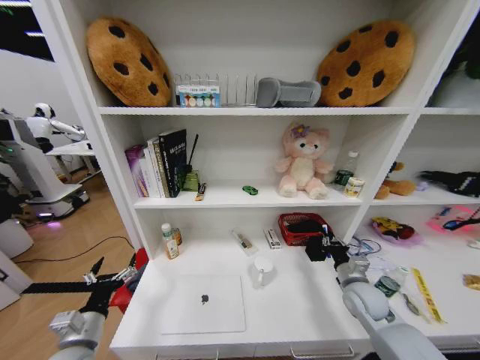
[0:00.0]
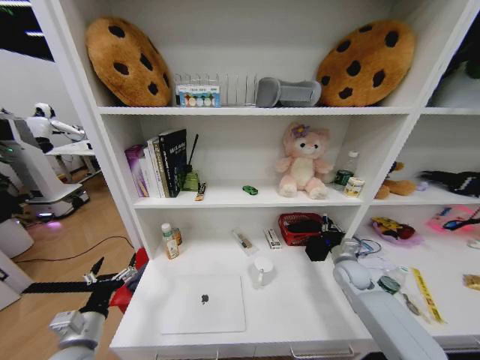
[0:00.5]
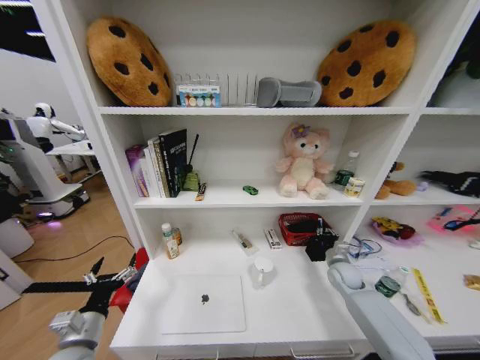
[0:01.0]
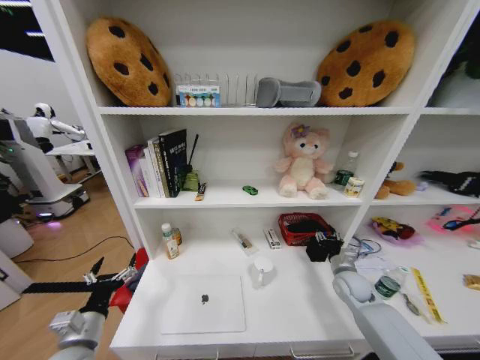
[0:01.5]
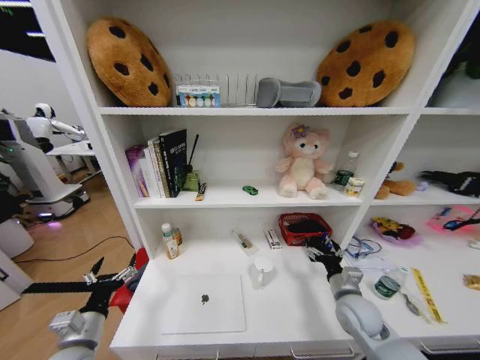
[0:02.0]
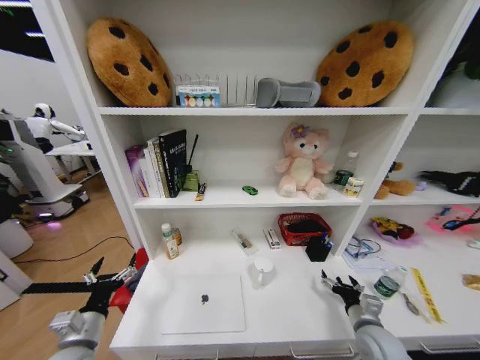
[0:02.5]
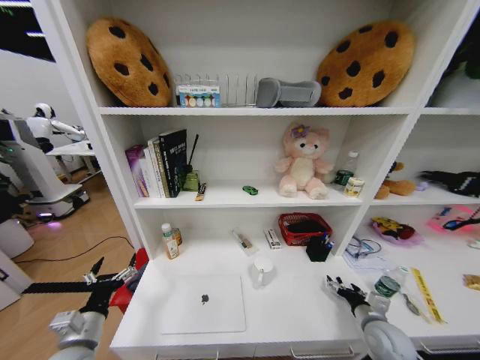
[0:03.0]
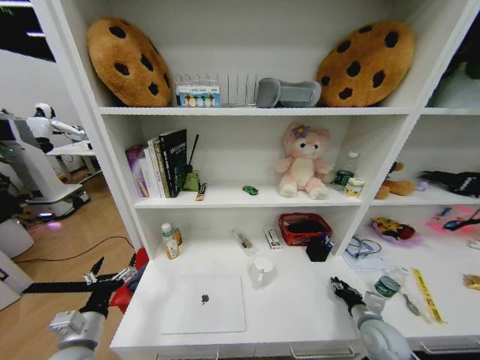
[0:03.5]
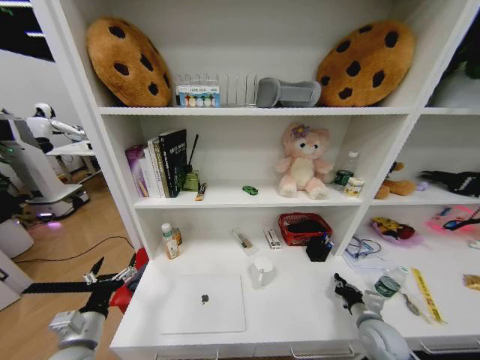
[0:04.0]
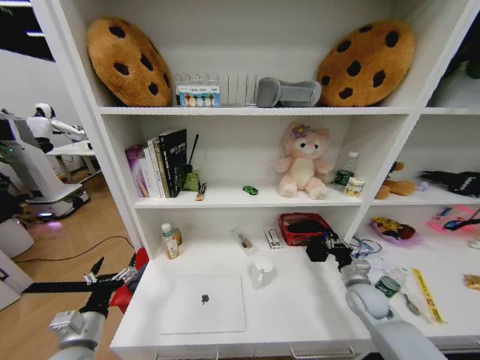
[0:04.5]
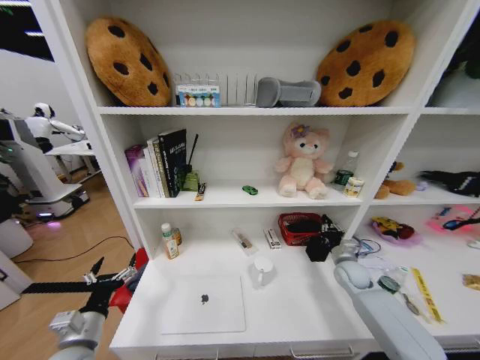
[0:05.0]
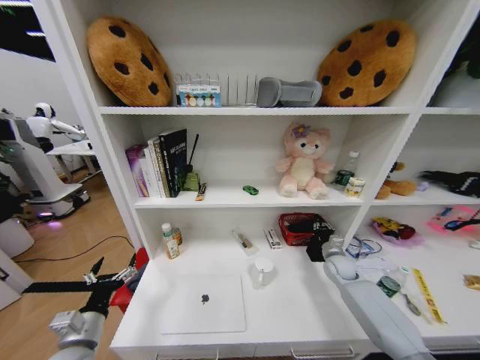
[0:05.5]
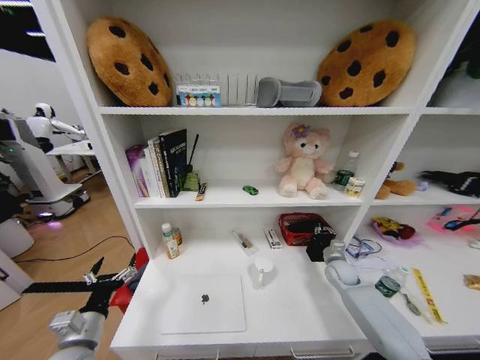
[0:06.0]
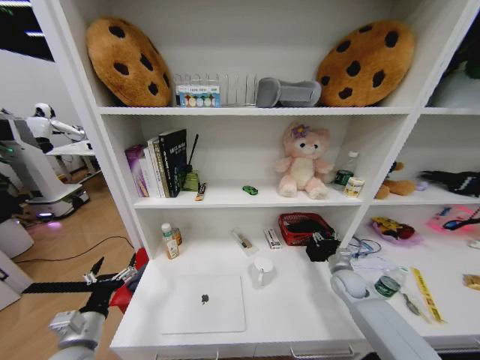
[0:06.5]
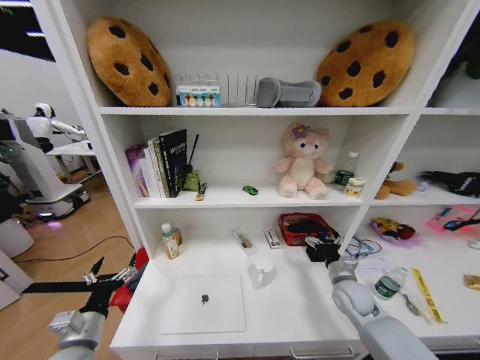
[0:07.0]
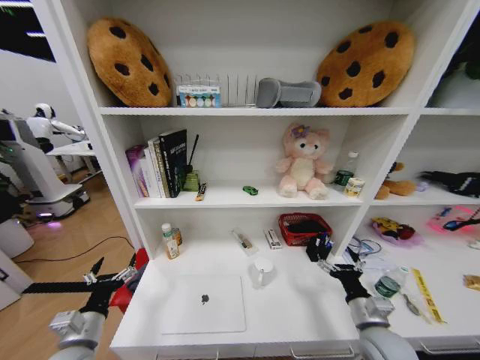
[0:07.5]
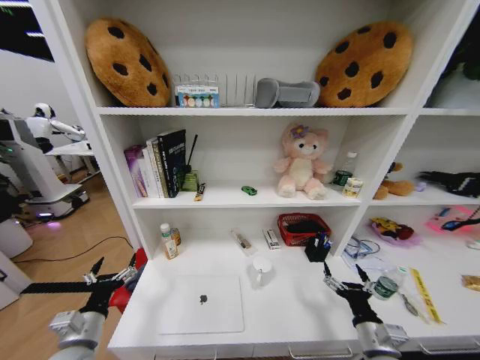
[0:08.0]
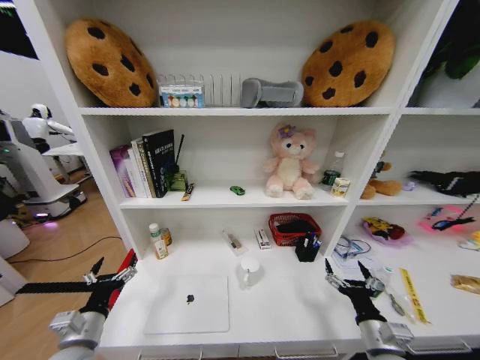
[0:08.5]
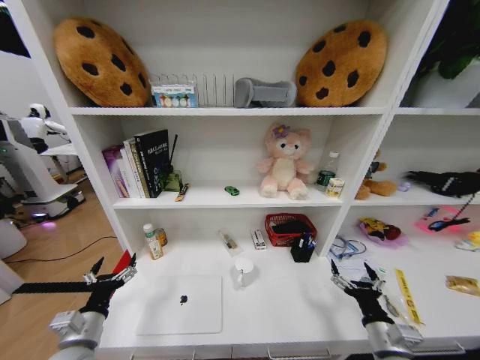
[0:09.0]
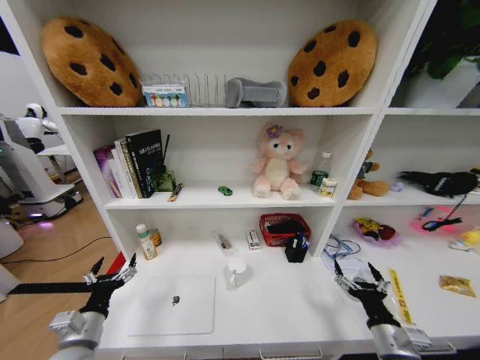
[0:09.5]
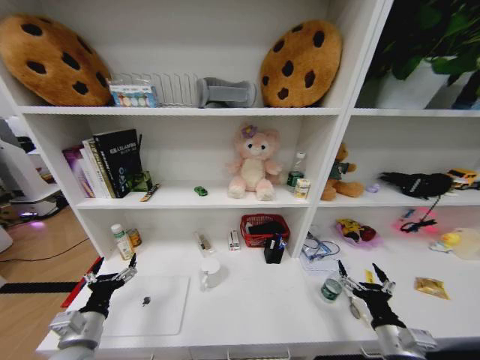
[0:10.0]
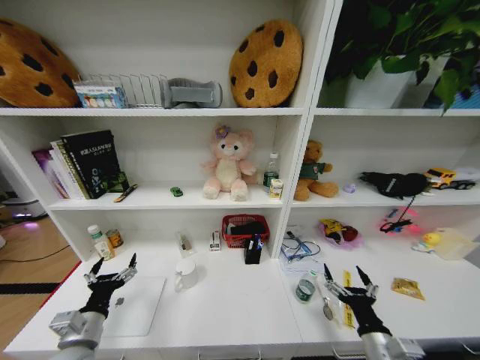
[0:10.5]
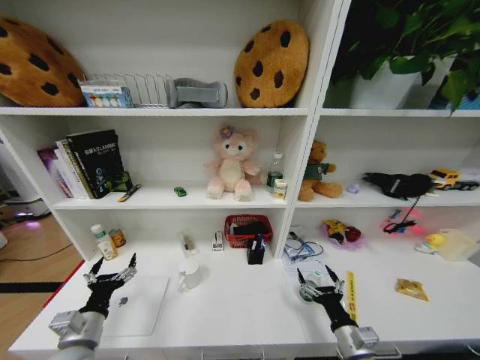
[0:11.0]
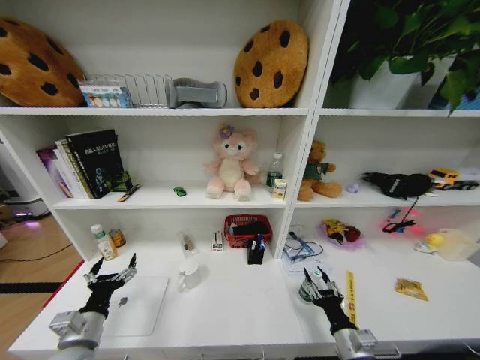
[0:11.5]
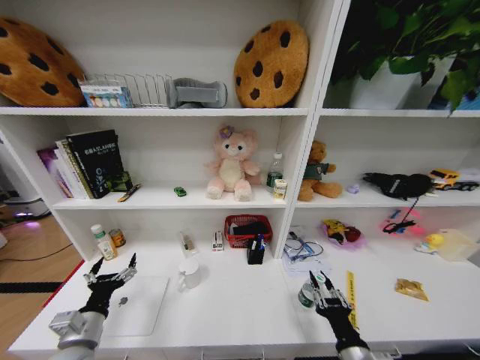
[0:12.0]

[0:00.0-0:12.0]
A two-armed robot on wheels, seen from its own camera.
Task of the whole recording: Organize the objects on the table.
0:00.0 to 0:02.0: The right gripper moves about 10 cm forward and comes back, and opens its fingers.
0:02.0 to 0:04.0: The right gripper moves to the right and downward, roughly 10 cm, and closes.
0:04.0 to 0:06.0: The right gripper travels forward by roughly 20 cm.
0:06.0 to 0:08.0: The right gripper is displaced backward by roughly 25 cm, and opens its fingers.
0:10.0 to 0:12.0: The right gripper goes roughly 10 cm to the left, and closes.

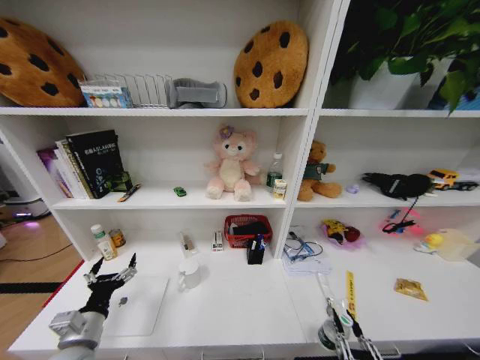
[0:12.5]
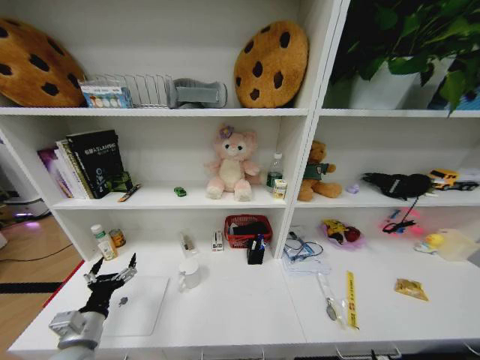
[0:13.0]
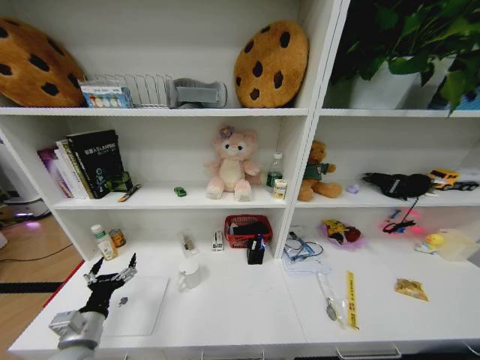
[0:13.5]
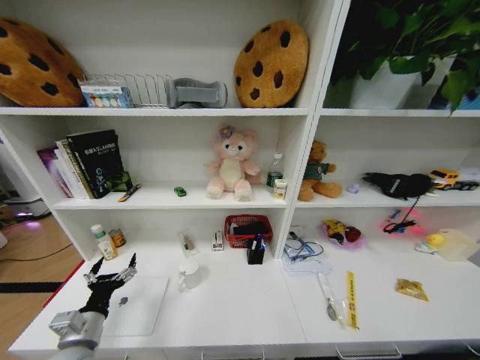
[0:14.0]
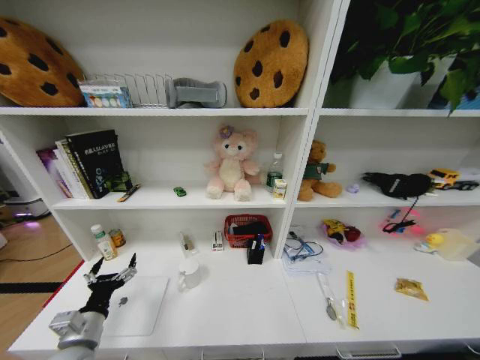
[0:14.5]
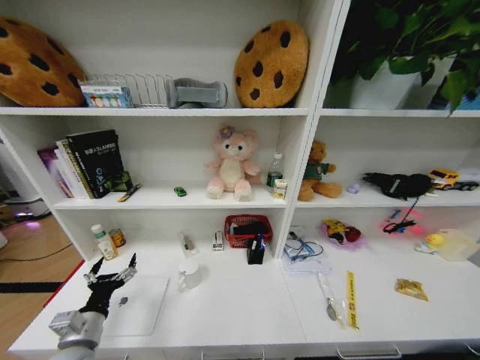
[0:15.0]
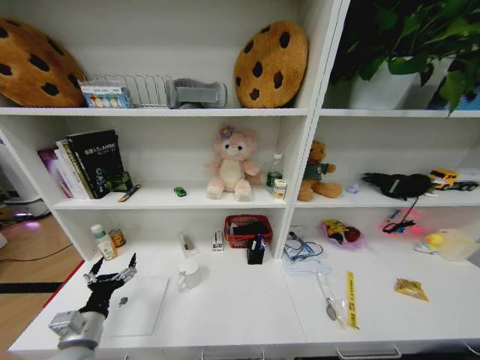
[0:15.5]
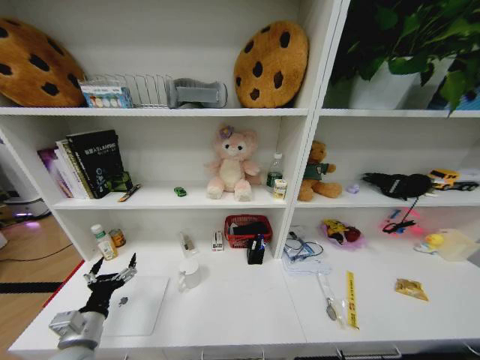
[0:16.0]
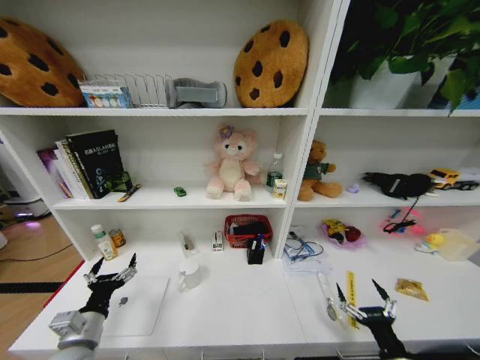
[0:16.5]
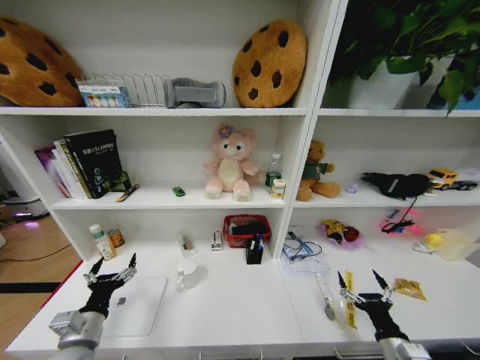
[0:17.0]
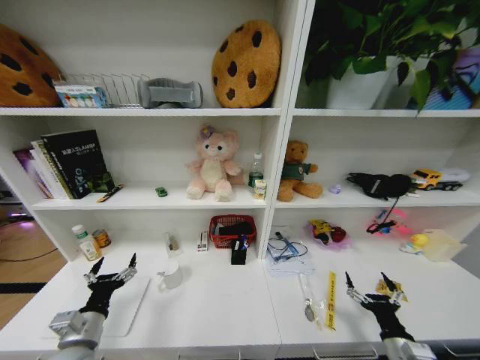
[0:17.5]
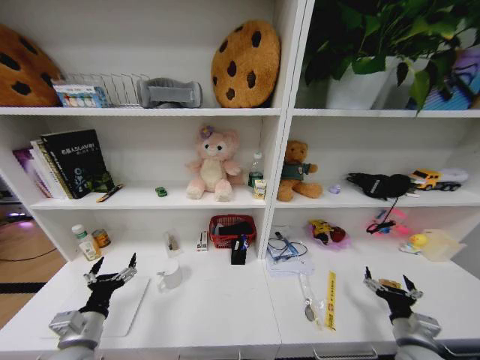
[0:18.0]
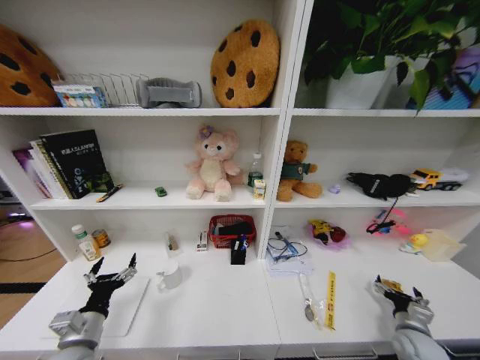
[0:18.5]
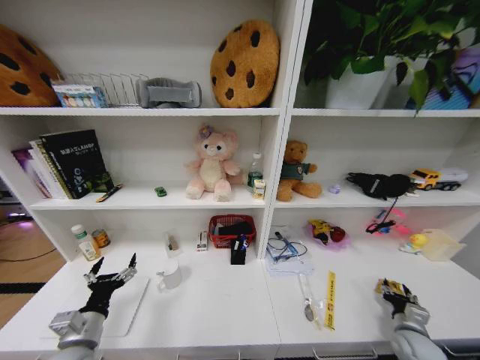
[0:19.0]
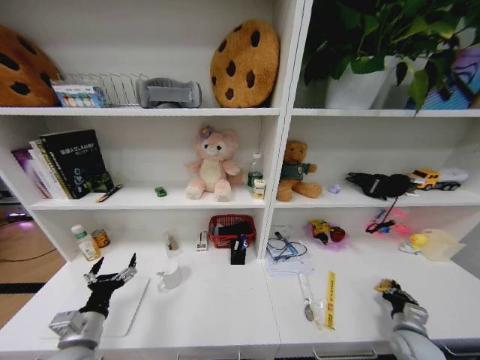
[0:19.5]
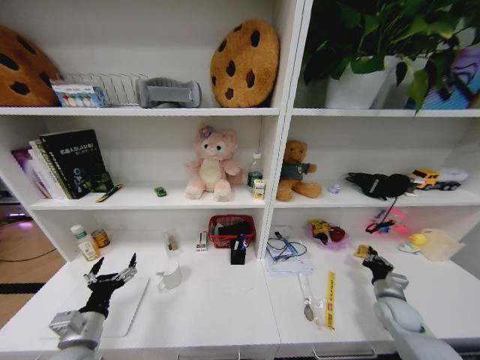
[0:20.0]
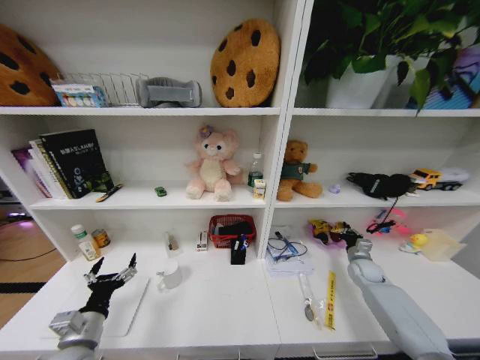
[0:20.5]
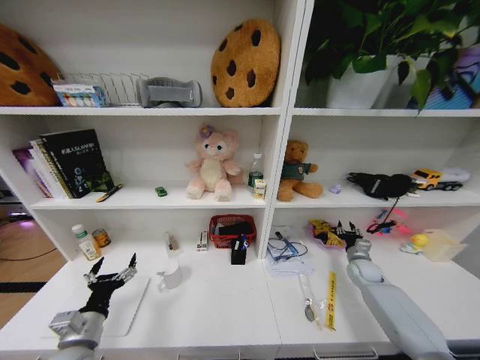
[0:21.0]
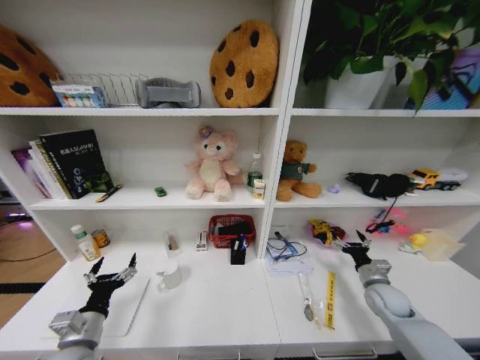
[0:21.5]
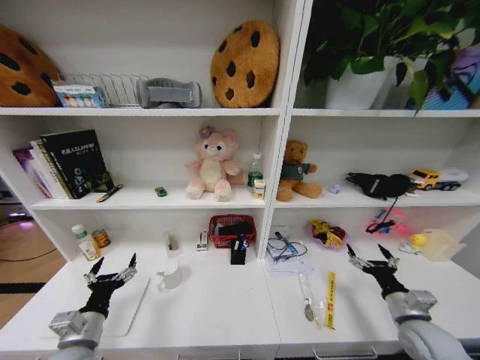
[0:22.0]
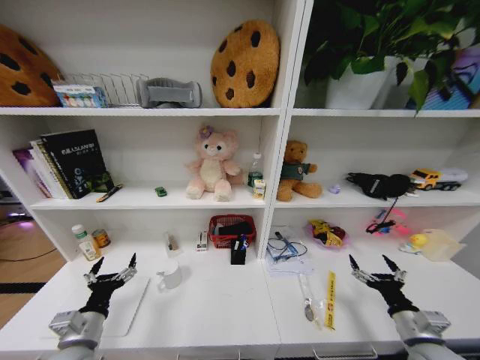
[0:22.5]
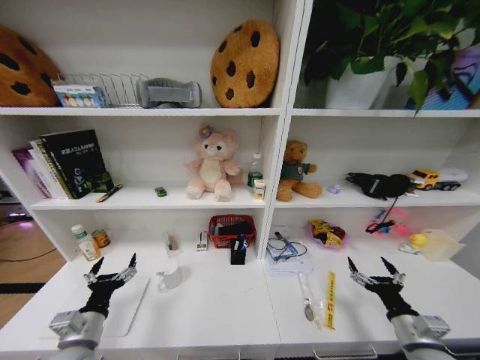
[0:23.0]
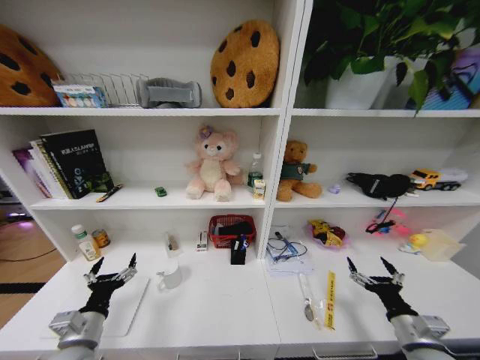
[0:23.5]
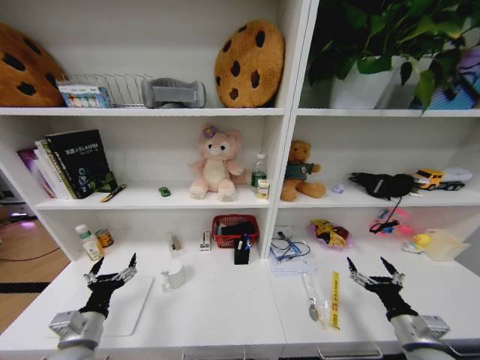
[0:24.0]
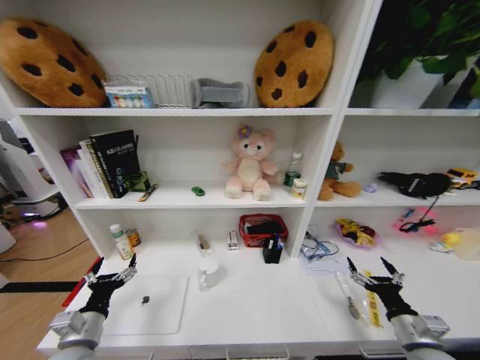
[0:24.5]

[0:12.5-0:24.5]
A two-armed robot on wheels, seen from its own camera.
Task of the whole recording: Organize the objects on the table.
0:12.5 to 0:14.5: The right gripper heads downward and to the right, covering approximately 30 cm.
0:14.5 to 0:16.5: The right gripper shifts roughly 25 cm upward and forward, and opens.
0:16.5 to 0:18.5: The right gripper moves to the right, forward and downward, some 20 cm.
0:18.5 to 0:20.5: The right gripper shifts roughly 20 cm forward, and closes.
0:20.5 to 0:22.5: The right gripper heads backward, covering roughly 25 cm, and opens up.
